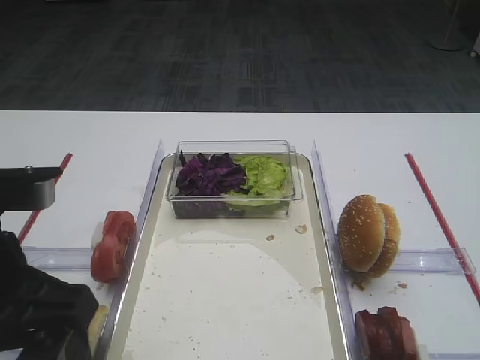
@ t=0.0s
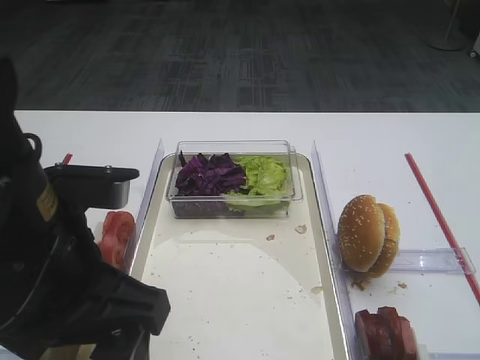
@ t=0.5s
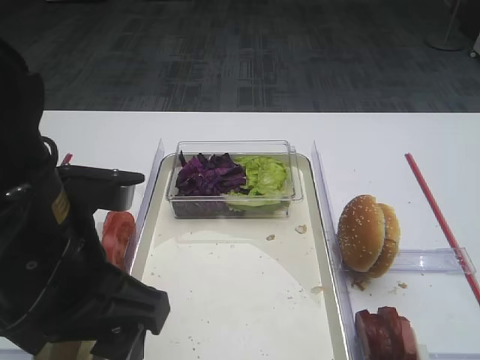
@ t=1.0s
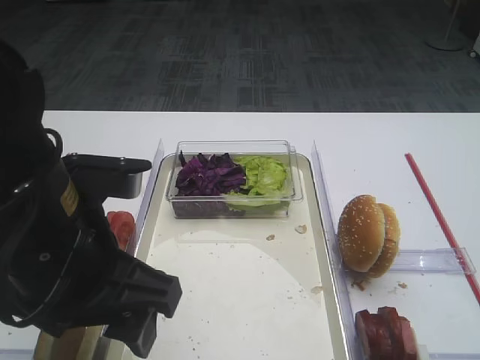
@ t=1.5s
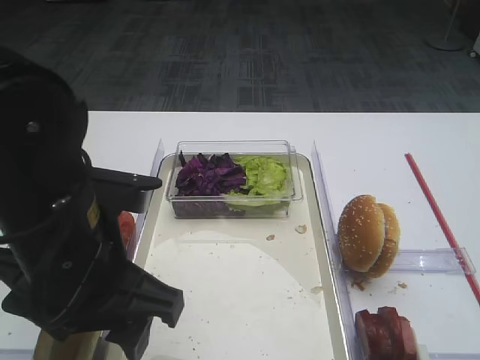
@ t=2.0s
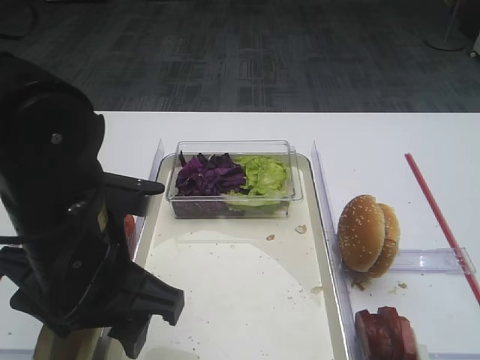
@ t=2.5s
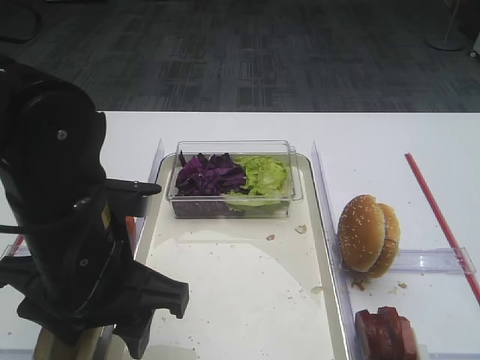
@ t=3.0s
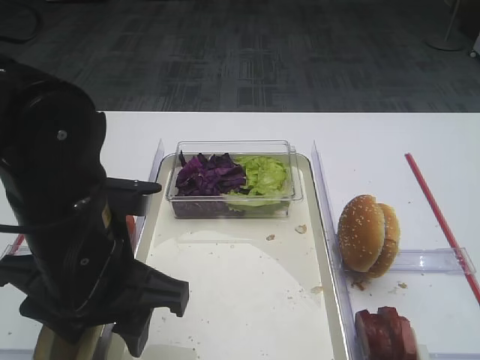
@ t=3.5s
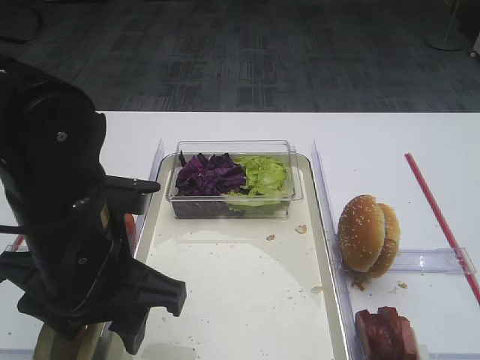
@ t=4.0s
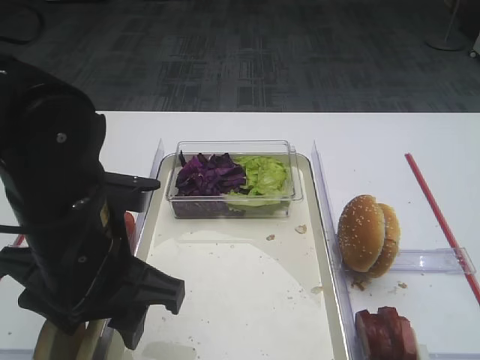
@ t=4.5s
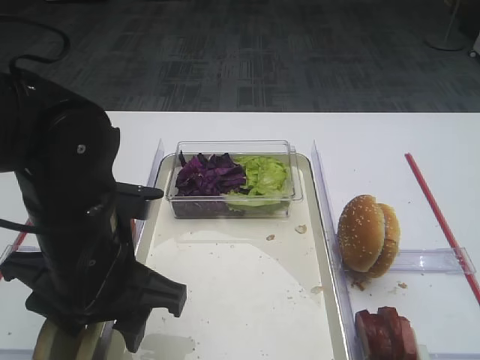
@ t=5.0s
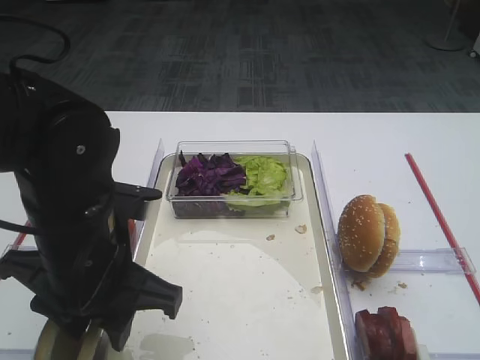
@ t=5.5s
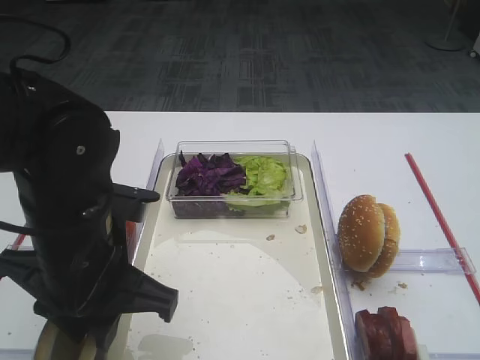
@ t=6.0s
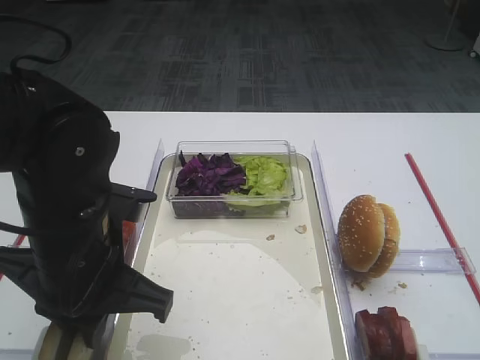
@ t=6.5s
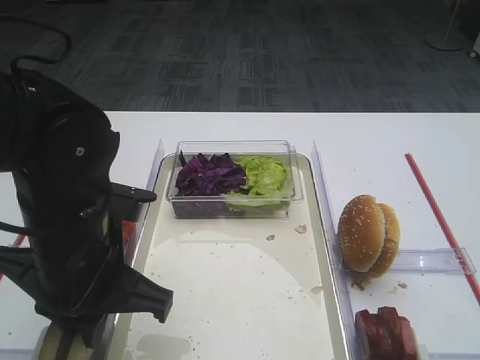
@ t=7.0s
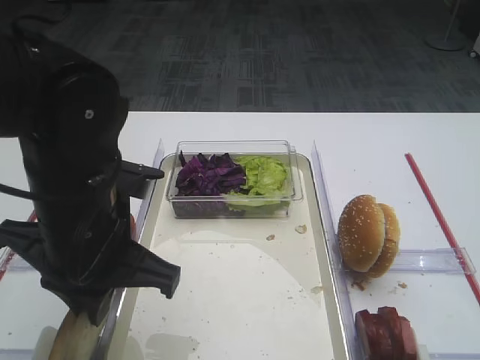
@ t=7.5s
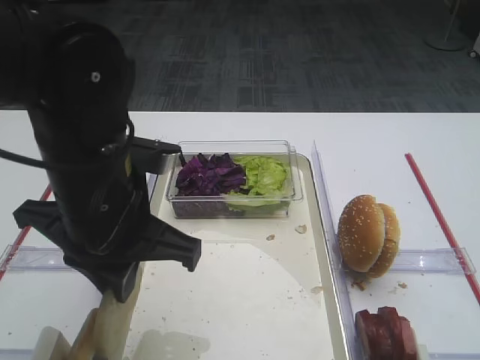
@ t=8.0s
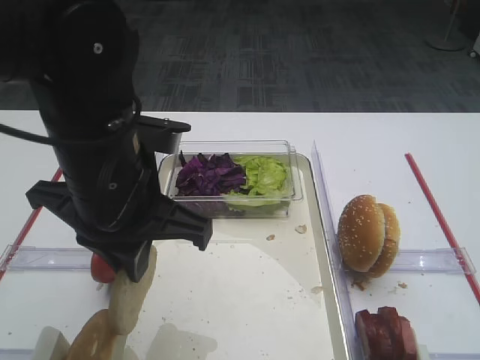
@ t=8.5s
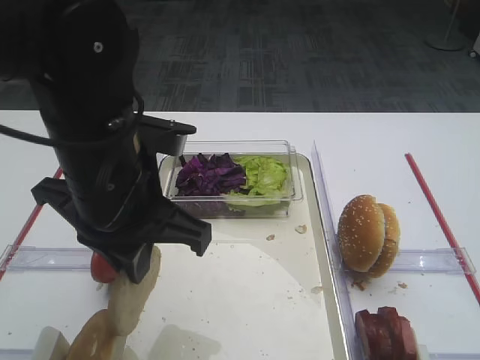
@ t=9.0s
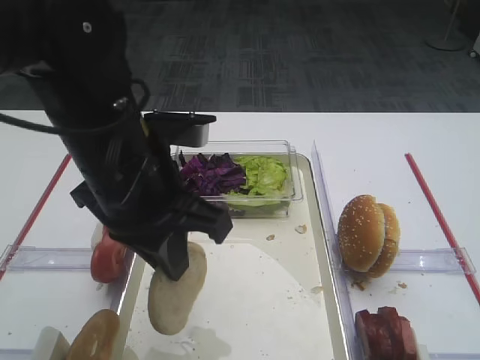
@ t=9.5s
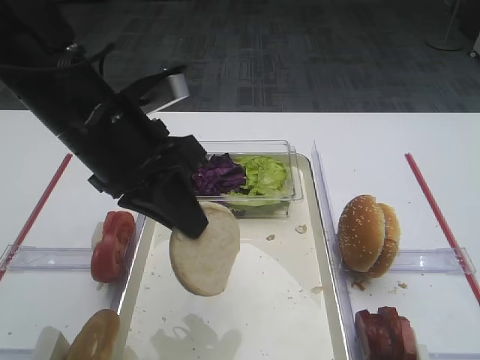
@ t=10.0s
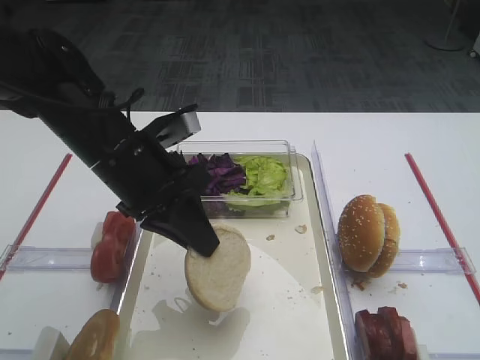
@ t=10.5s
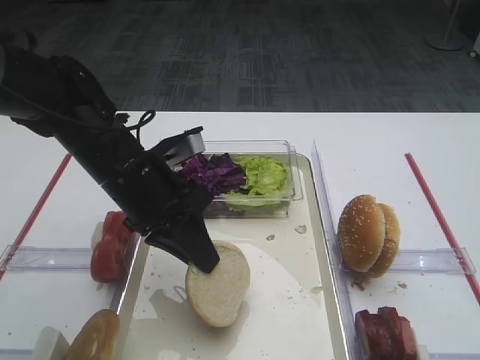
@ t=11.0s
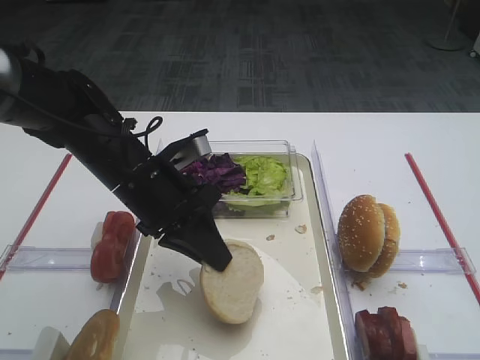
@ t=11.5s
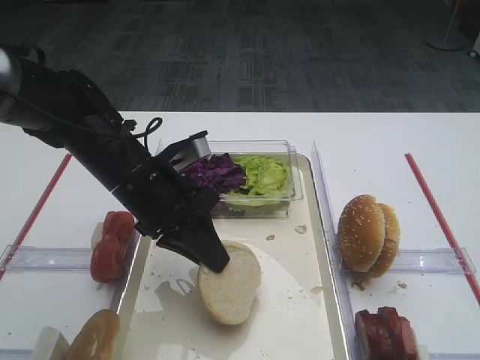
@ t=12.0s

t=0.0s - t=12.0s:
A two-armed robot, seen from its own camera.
Step, t=0.0s - t=7.5s: Pick up the bread slice with the left gripper.
t=0.0s - t=2.0s: The left gripper heads to the right, covering roughly 5 cm.
t=2.0s - t=4.0s: The grippers move only a little.
t=4.0s - t=6.0s: The left gripper closes up.
t=6.0s - t=8.0s: The left gripper changes place by roughly 5 cm.
t=10.0s - t=12.0s: The left gripper goes approximately 10 cm downward.

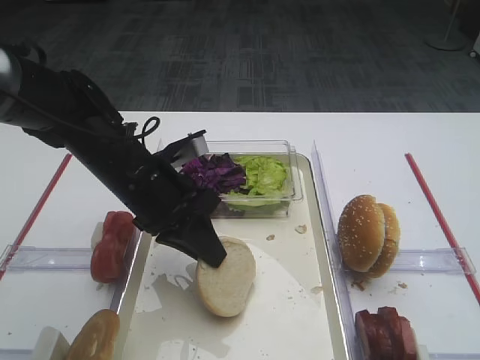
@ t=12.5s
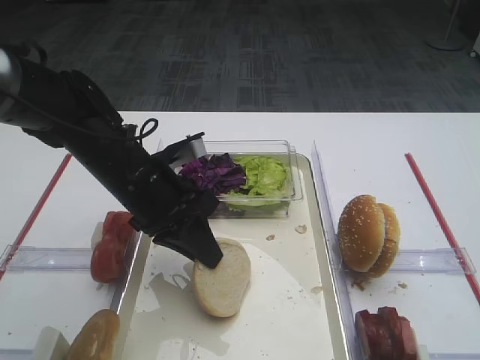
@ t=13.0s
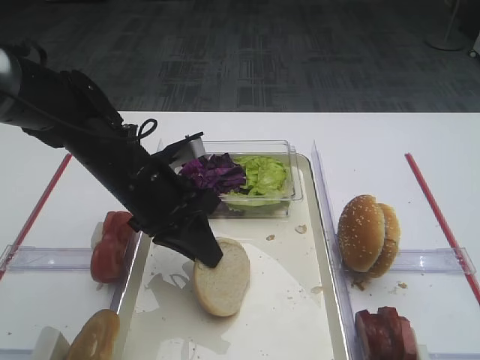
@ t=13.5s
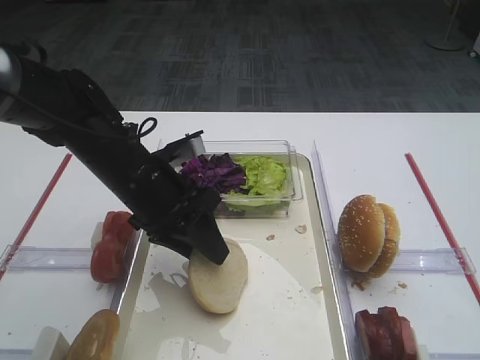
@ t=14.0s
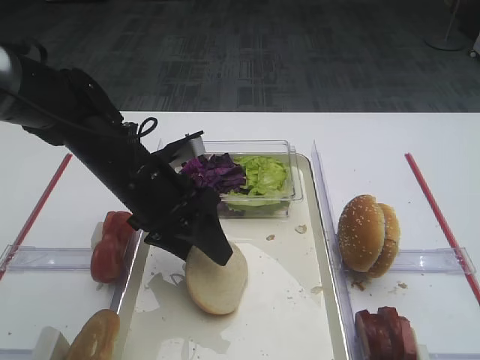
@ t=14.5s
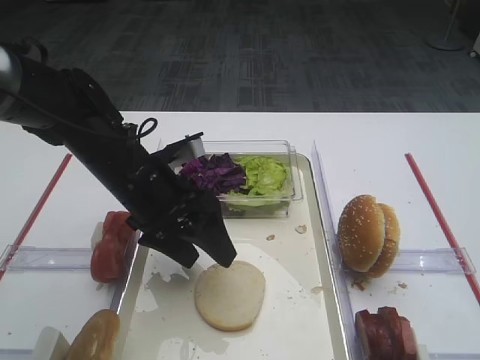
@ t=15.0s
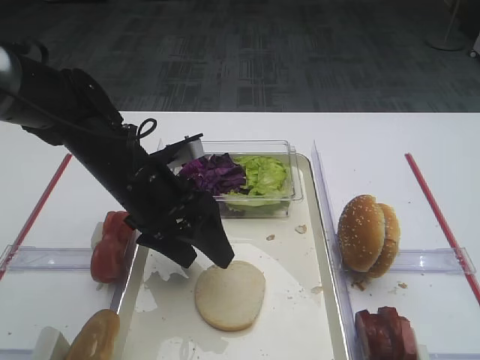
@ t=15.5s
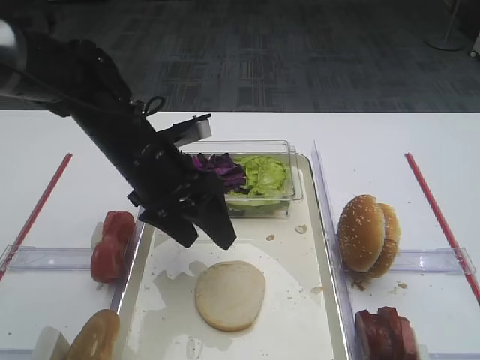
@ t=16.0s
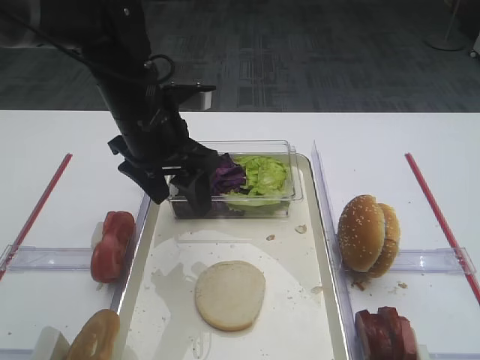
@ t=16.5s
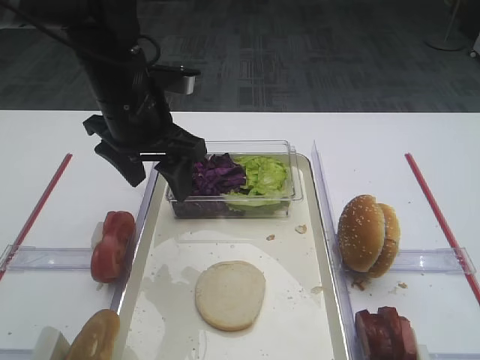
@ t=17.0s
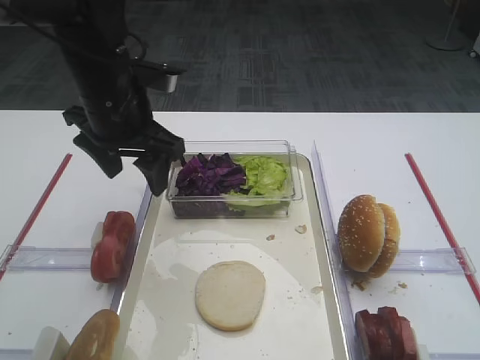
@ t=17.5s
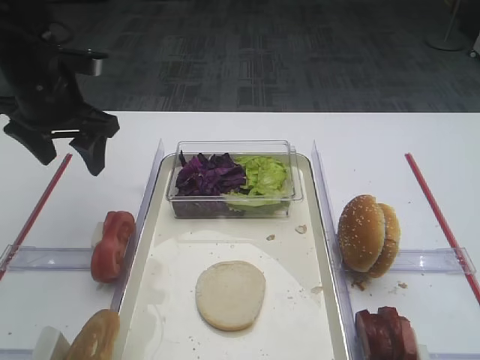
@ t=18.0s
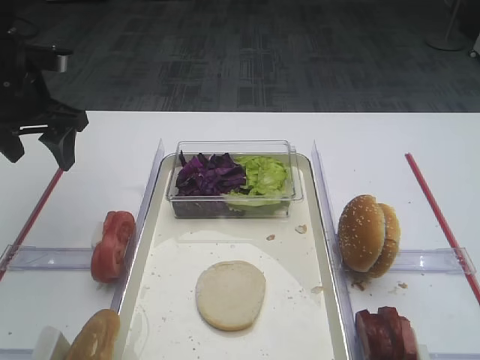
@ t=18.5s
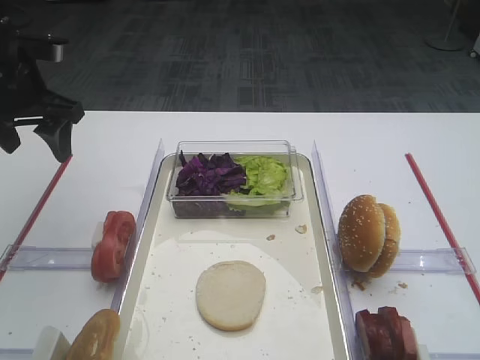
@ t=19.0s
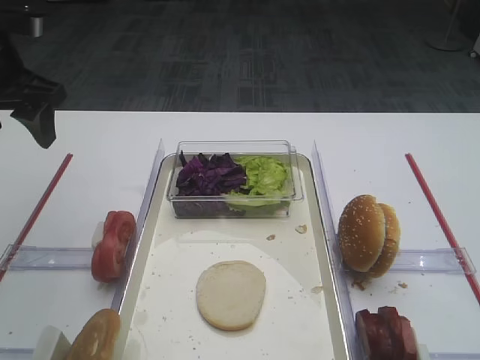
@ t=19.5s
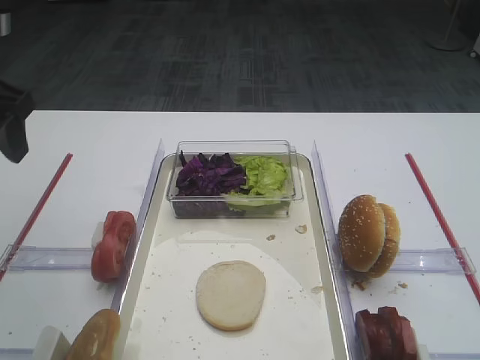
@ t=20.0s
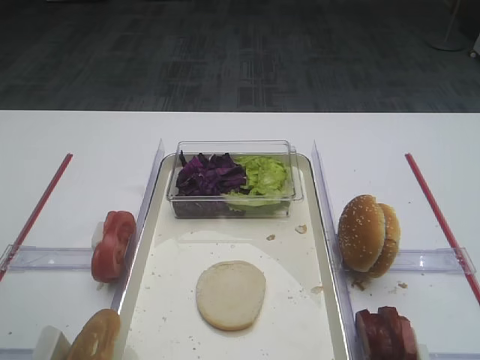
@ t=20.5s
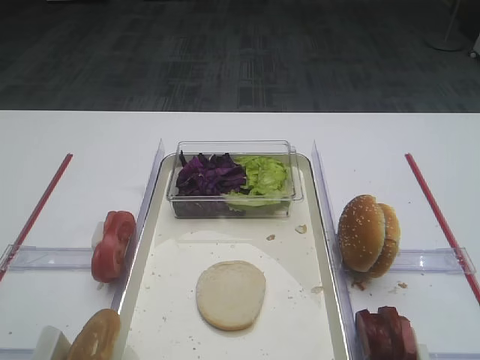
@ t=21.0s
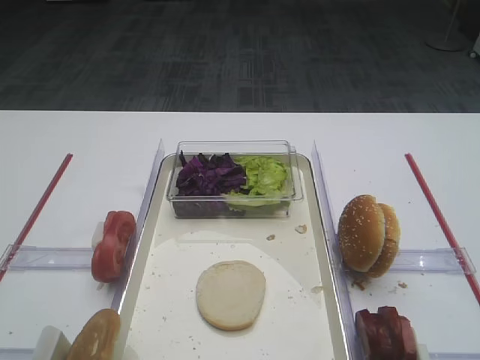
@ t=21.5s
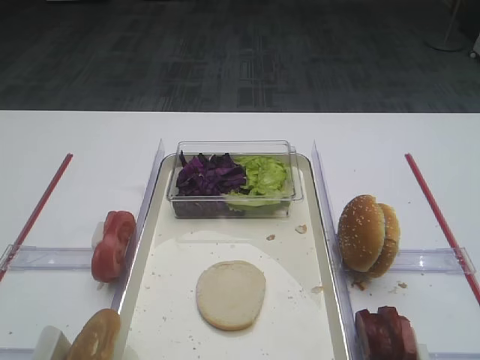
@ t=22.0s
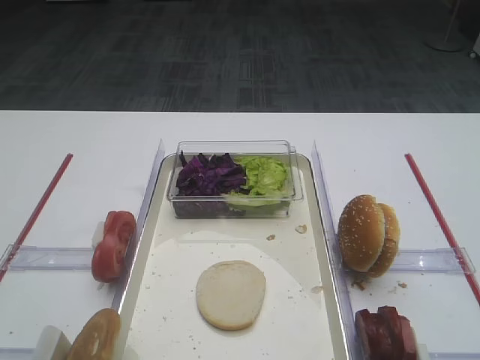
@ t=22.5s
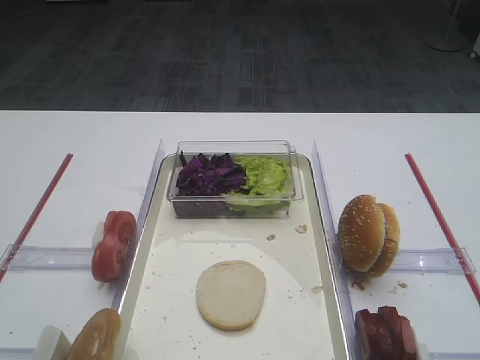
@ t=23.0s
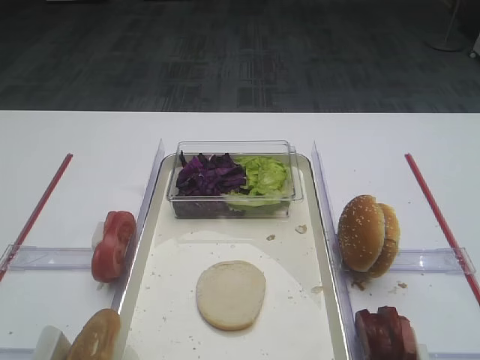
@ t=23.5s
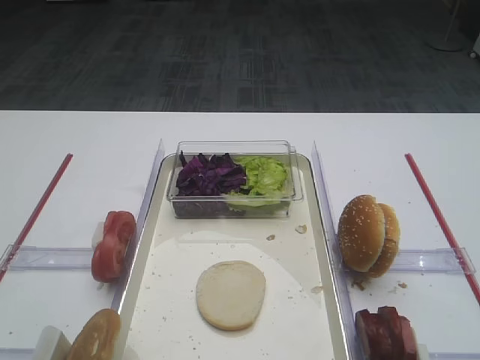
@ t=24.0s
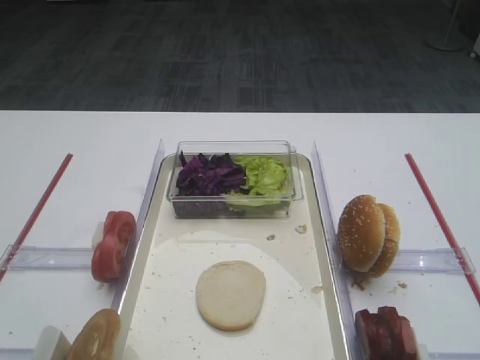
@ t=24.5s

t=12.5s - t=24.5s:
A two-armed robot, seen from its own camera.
Step, t=12.5s - t=14.5s: Place the bread slice on the tray with the left gripper.
t=12.5s - t=14.5s: The left gripper opens.
t=14.5s - t=16.5s: The left gripper moves upward, approximately 5 cm.
t=16.5s - t=18.5s: The left gripper is displaced to the left by approximately 15 cm.
t=18.5s - t=20.5s: The left gripper heads backward, covering some 20 cm.

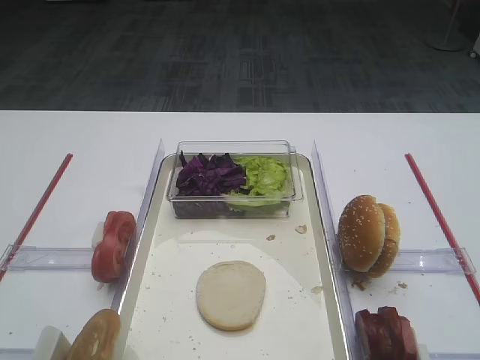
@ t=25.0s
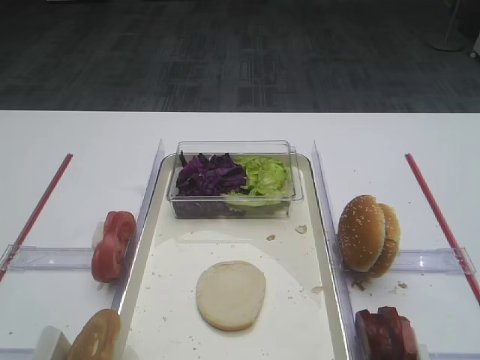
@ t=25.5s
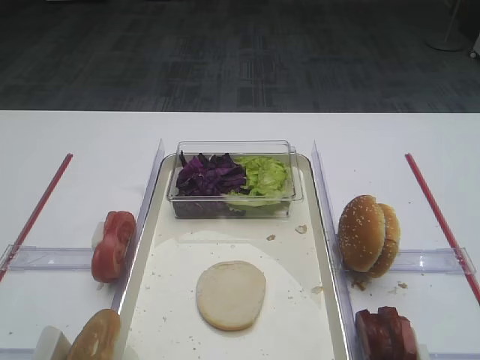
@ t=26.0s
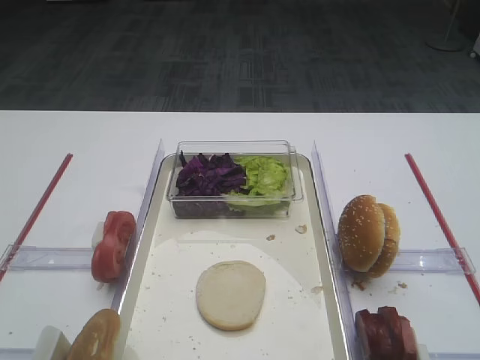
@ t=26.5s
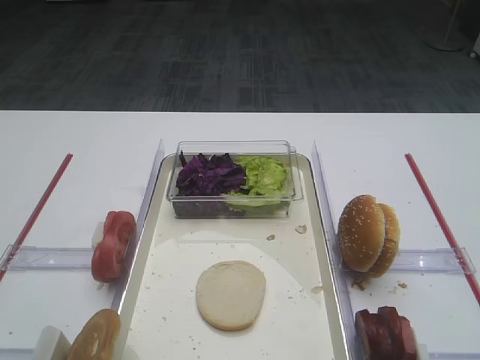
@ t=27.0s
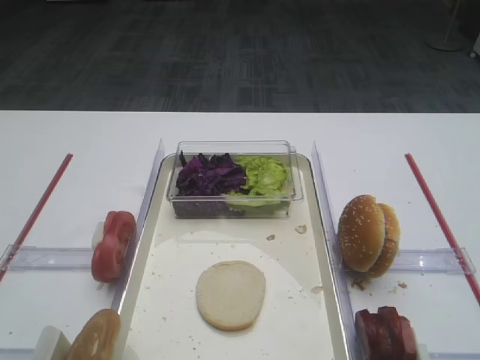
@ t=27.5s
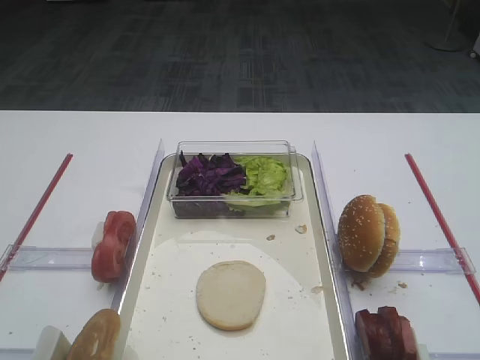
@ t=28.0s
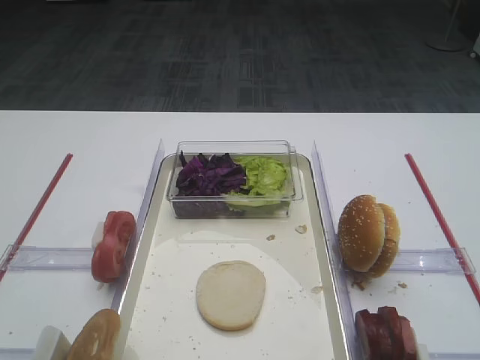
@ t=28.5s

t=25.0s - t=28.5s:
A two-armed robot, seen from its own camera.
t=25.0s - t=28.5s: Neither gripper changes place.
